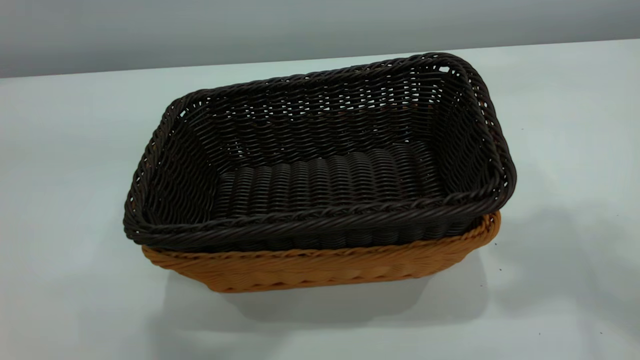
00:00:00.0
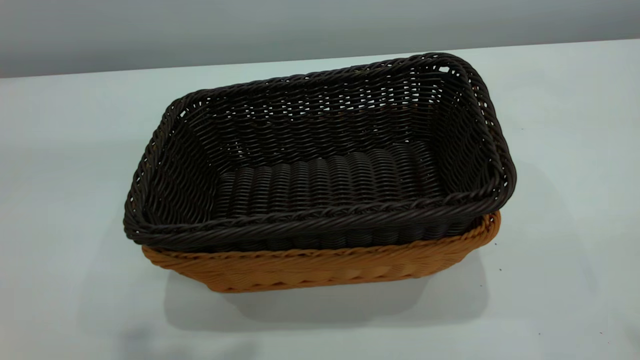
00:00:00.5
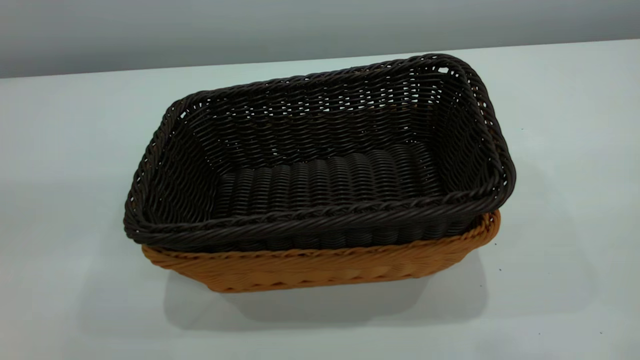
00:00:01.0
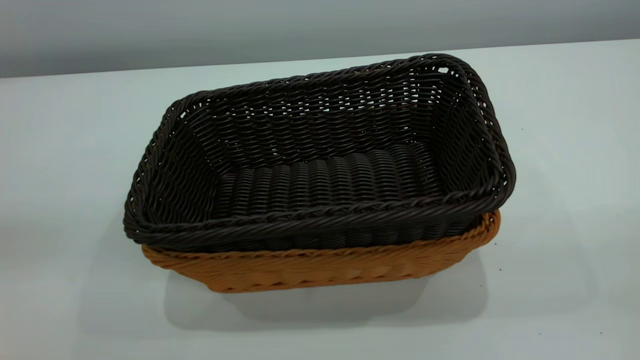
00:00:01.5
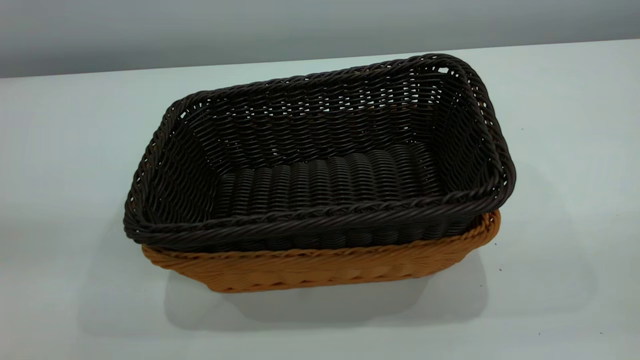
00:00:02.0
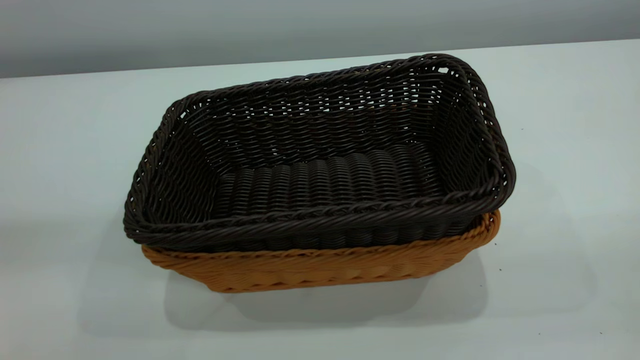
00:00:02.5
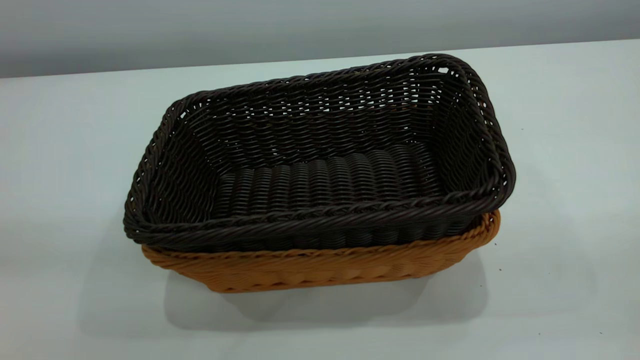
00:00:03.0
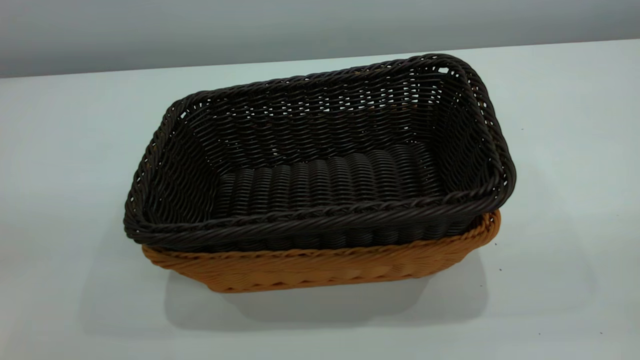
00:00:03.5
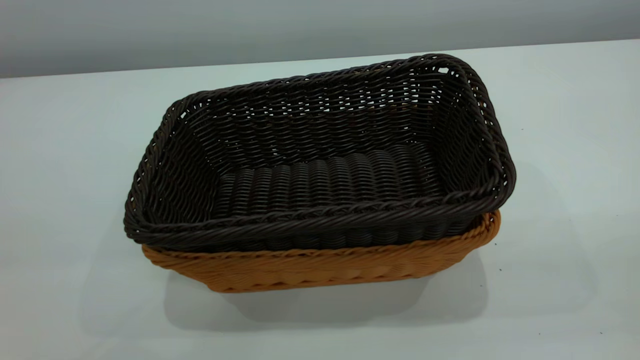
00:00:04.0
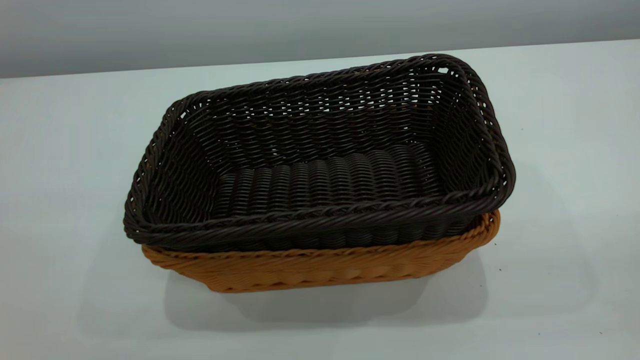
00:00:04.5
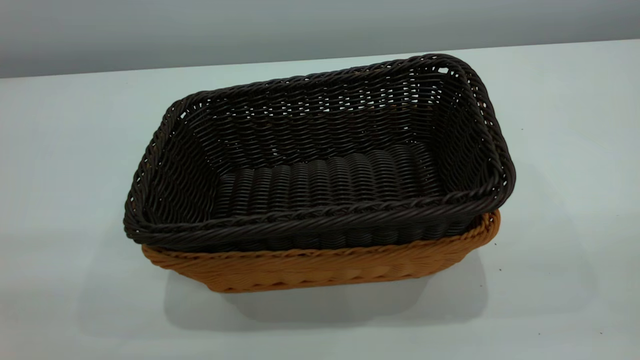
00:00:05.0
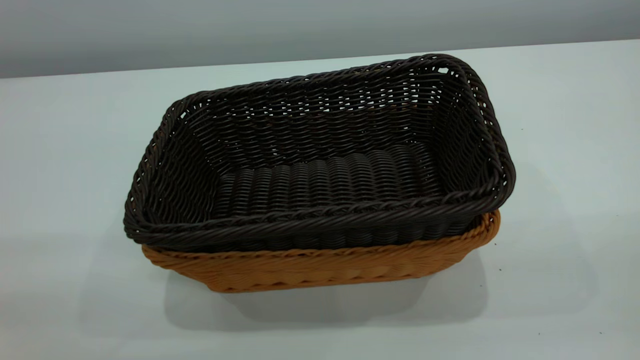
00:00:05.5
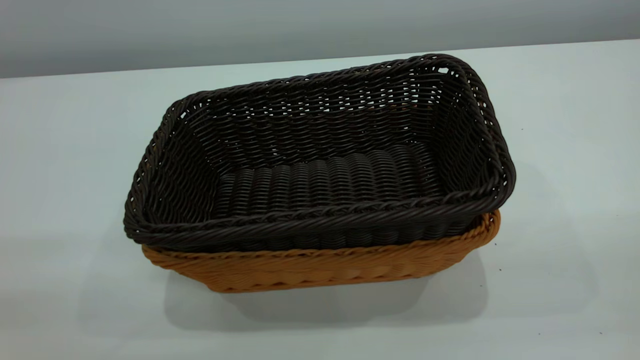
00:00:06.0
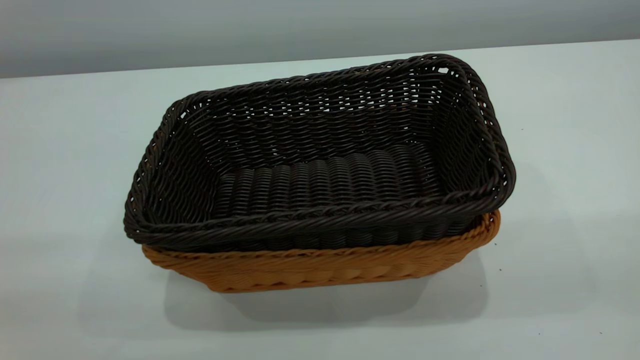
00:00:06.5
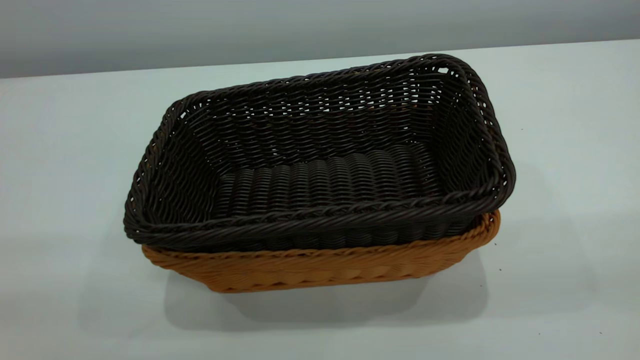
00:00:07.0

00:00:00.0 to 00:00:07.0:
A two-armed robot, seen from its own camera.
Task of the whole recording: the left gripper grasp the brown basket and place it in the center of the table, the right gripper grasp the black basket and place it inside the brown one.
00:00:00.0 to 00:00:02.0: The right gripper heads backward and downward, covering about 30 cm, while the left gripper moves backward and downward, approximately 10 cm.

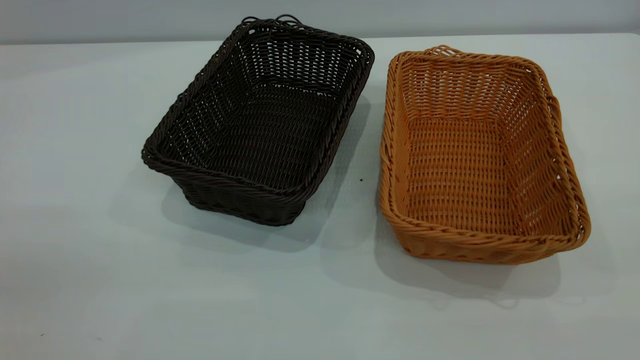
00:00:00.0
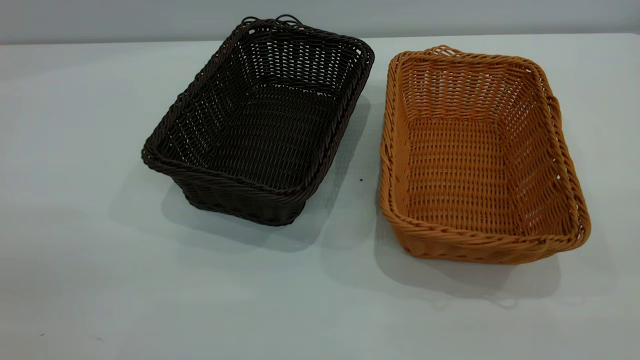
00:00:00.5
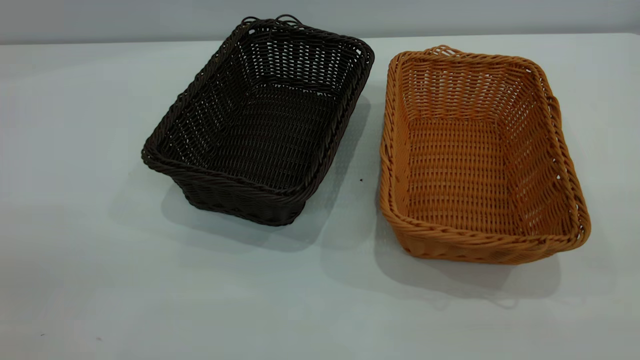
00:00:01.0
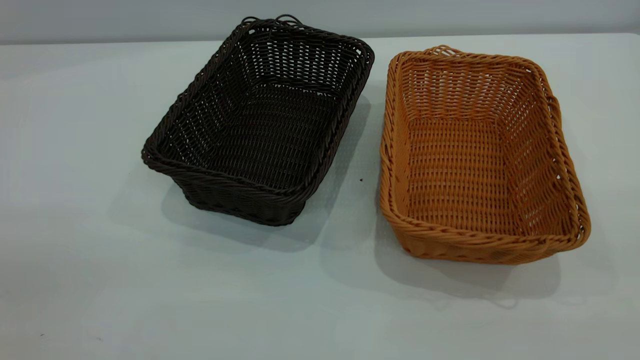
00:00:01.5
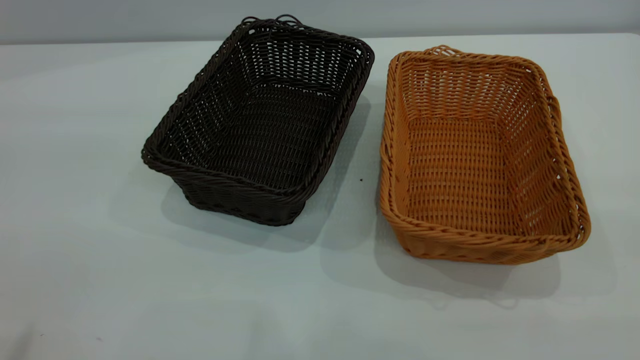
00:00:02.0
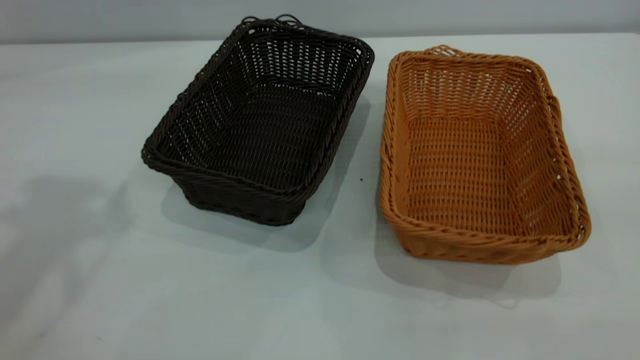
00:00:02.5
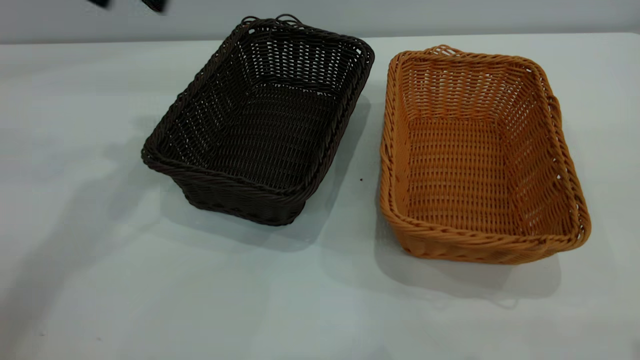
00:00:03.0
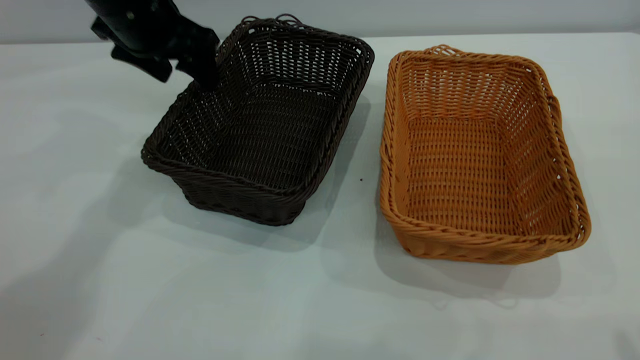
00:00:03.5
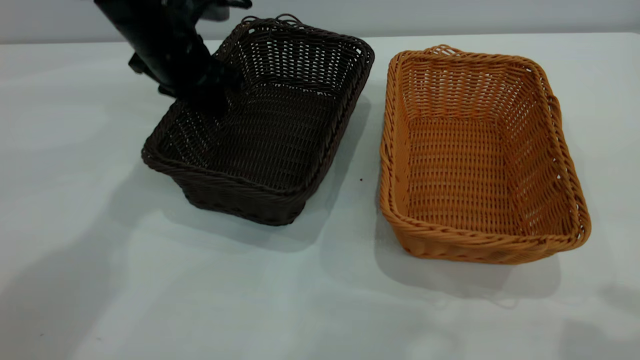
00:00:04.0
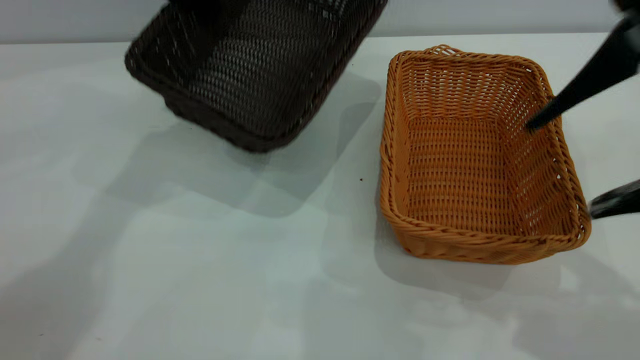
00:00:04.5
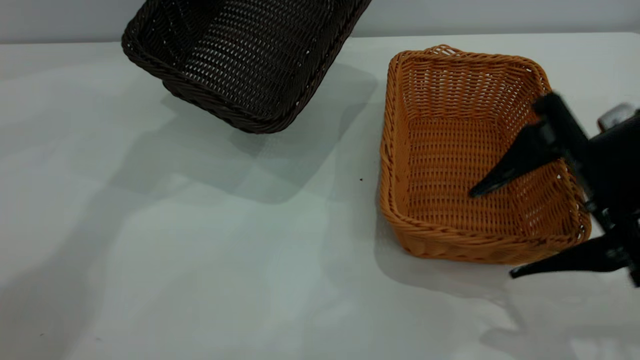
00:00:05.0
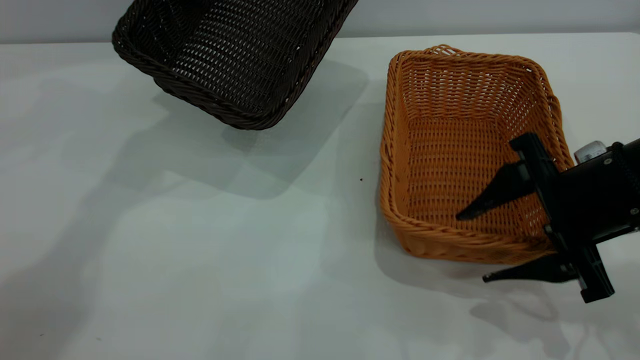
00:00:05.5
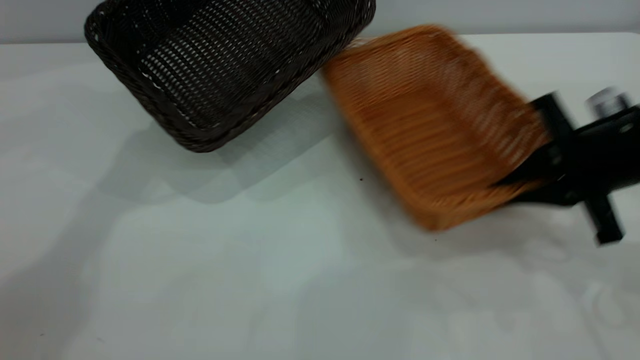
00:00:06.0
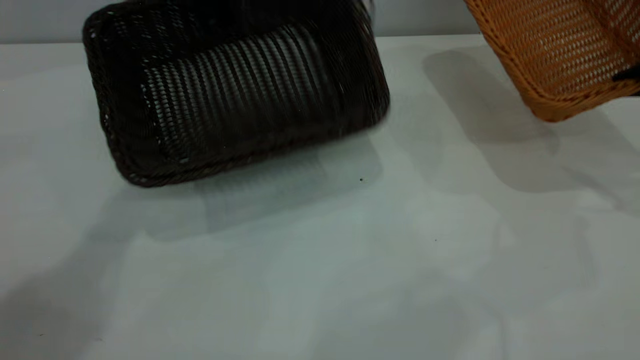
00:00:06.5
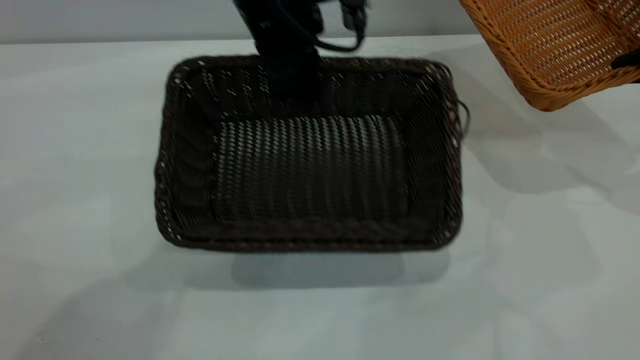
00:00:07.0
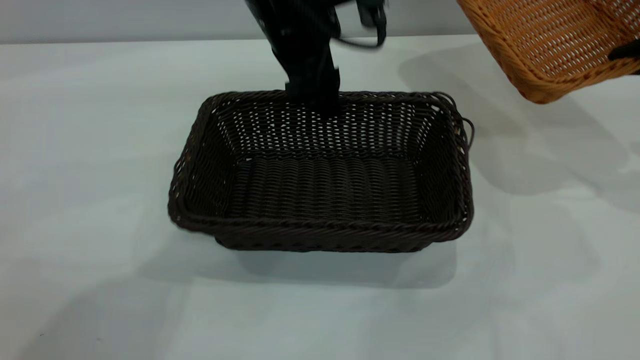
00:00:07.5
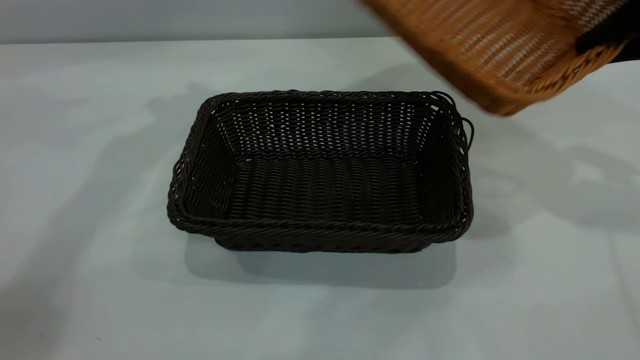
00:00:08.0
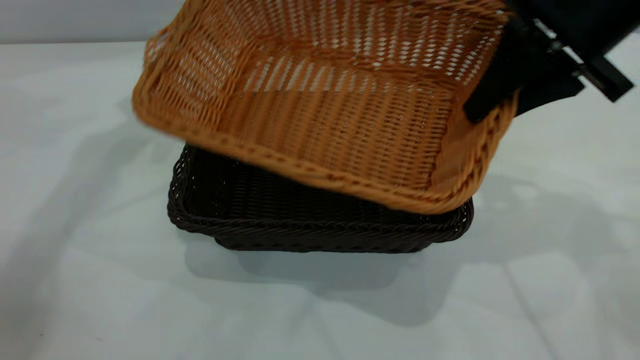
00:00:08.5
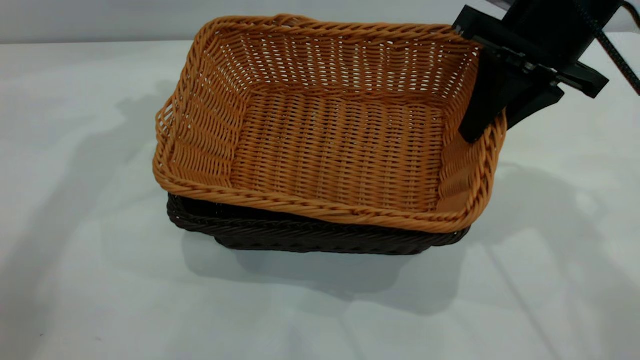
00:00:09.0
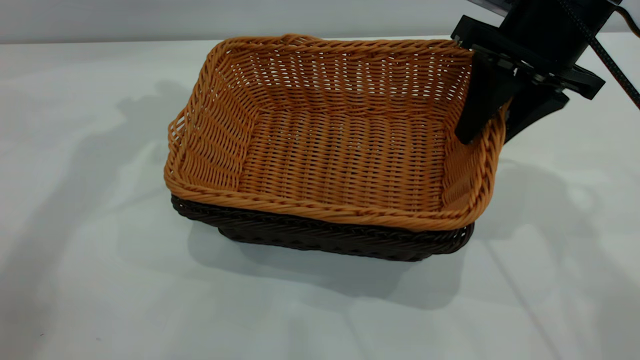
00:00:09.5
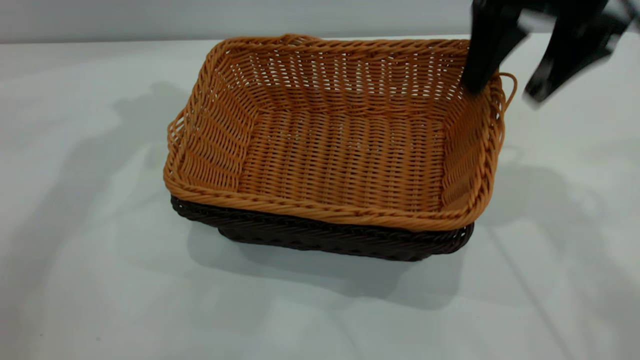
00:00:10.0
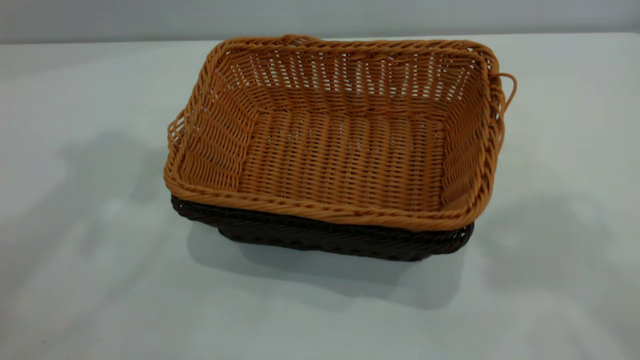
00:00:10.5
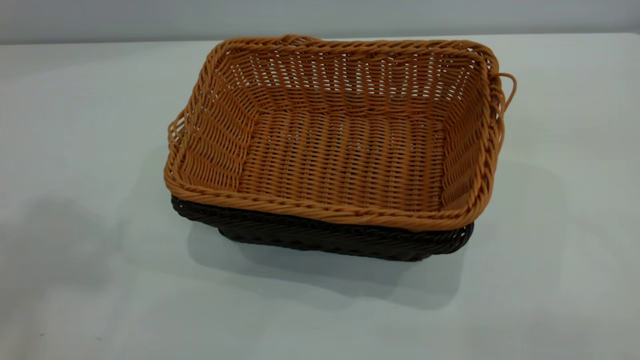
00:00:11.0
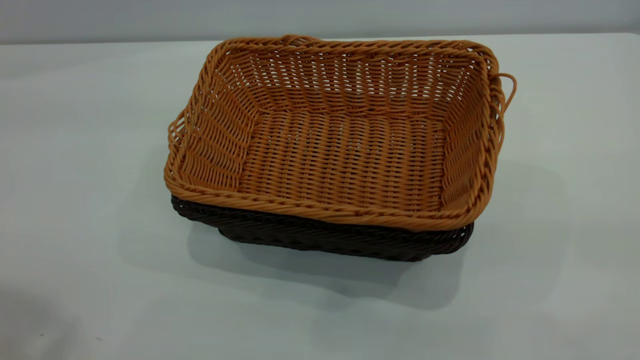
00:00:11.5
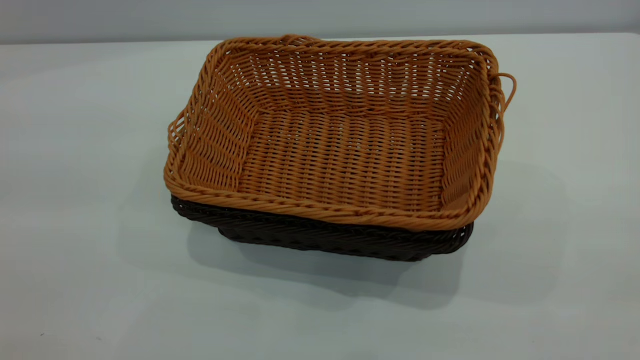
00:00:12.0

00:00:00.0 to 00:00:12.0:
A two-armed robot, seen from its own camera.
Task of the whole recording: the left gripper grasp the black basket and place it in the center of the table, the right gripper grasp the brown basket and place it inside the black one.
Step, 00:00:00.0 to 00:00:06.0: Pick up the light basket with the right gripper.
Step, 00:00:06.5 to 00:00:07.5: Move the dark basket to the center of view.
Step, 00:00:08.0 to 00:00:10.0: Place the light basket on the dark basket.
00:00:02.0 to 00:00:04.0: The left gripper is displaced forward and downward by some 50 cm, and closes its fingers.
00:00:04.0 to 00:00:06.0: The right gripper moves downward and forward, some 25 cm, and closes, while the left gripper goes about 10 cm upward.
00:00:06.0 to 00:00:08.0: The left gripper travels to the right and back again, approximately 15 cm each way, and opens up. The right gripper is displaced upward by some 15 cm.
00:00:08.0 to 00:00:10.0: The right gripper travels to the left by about 10 cm, and opens up. The left gripper shifts by roughly 5 cm.
00:00:10.0 to 00:00:12.0: Both grippers travel together backward, some 40 cm.
